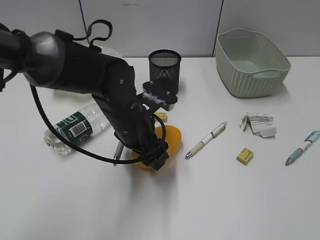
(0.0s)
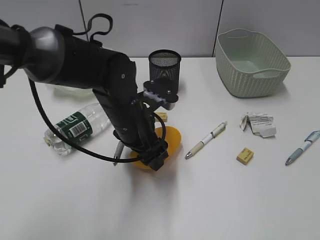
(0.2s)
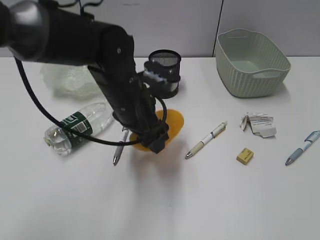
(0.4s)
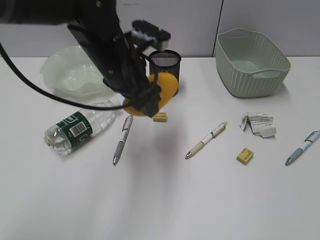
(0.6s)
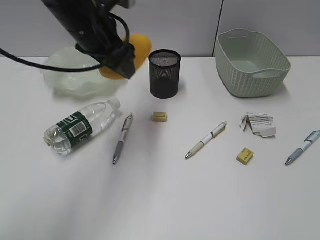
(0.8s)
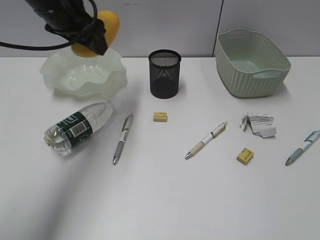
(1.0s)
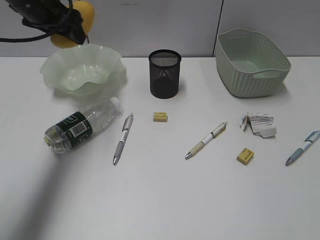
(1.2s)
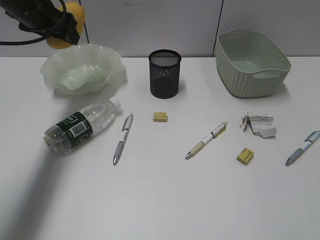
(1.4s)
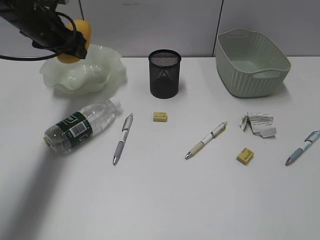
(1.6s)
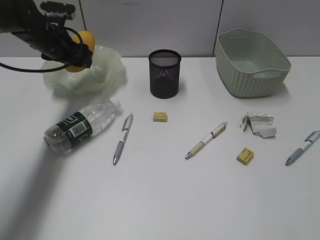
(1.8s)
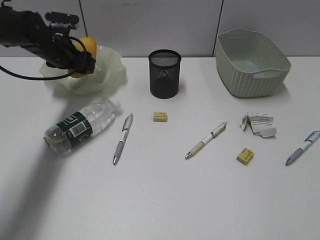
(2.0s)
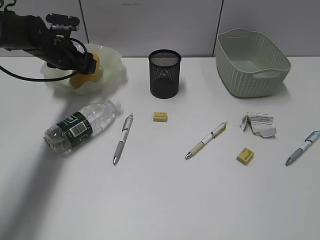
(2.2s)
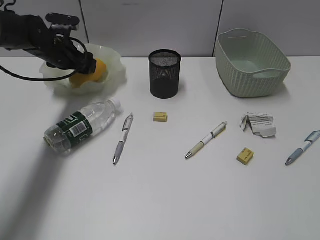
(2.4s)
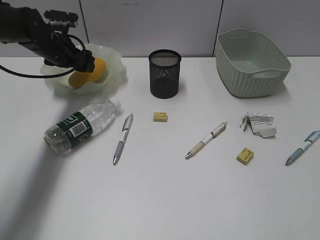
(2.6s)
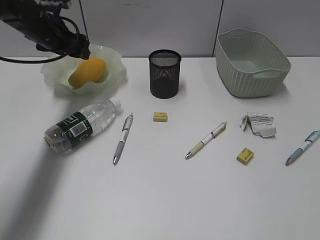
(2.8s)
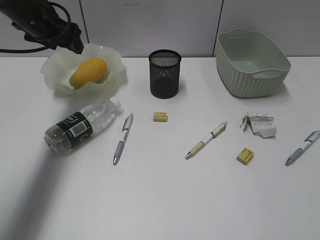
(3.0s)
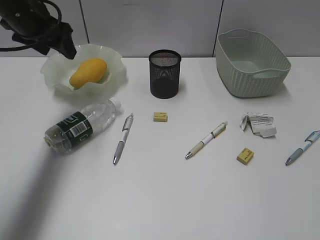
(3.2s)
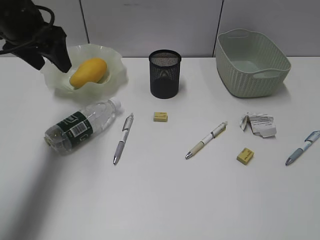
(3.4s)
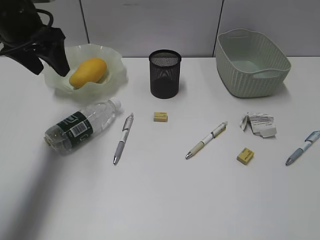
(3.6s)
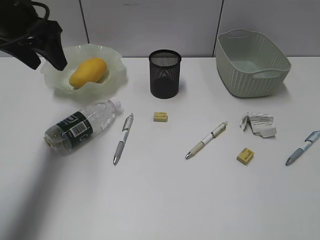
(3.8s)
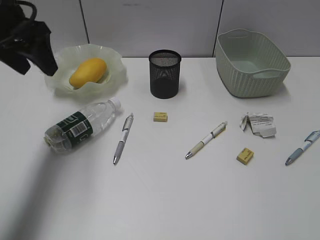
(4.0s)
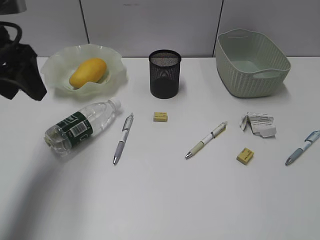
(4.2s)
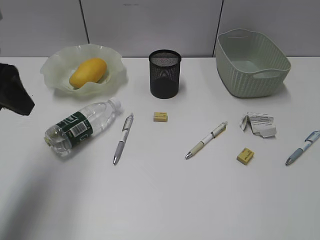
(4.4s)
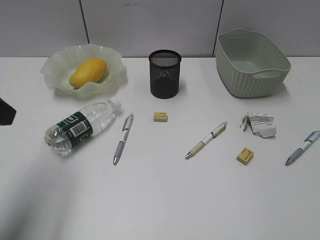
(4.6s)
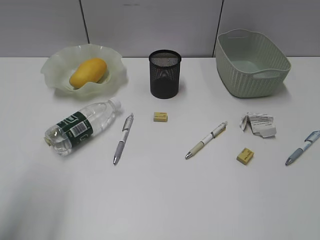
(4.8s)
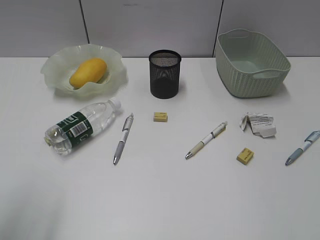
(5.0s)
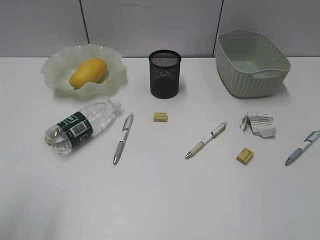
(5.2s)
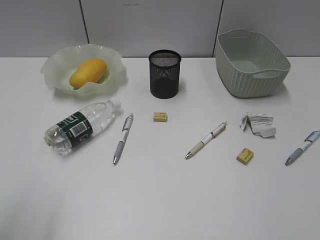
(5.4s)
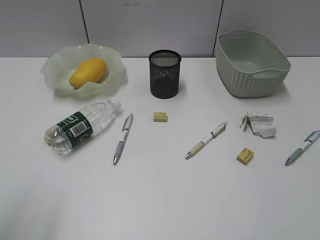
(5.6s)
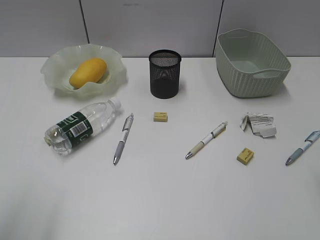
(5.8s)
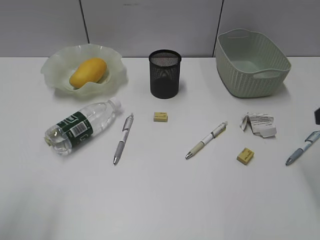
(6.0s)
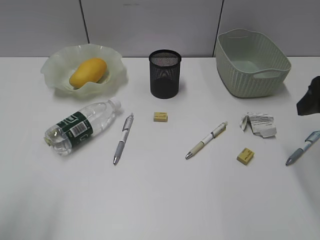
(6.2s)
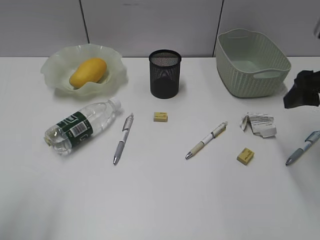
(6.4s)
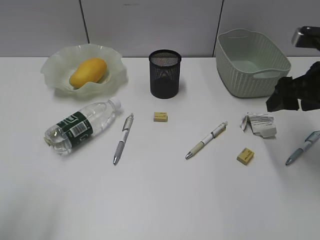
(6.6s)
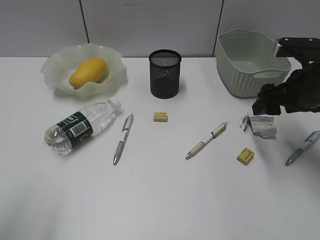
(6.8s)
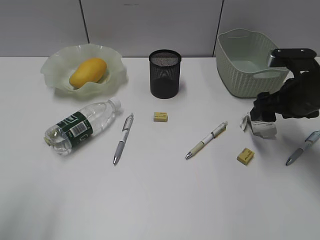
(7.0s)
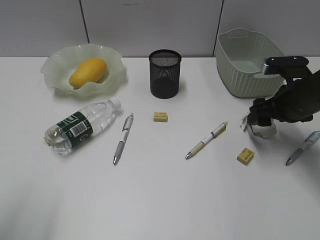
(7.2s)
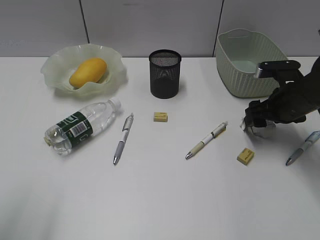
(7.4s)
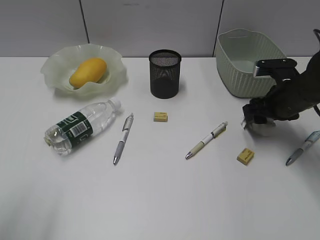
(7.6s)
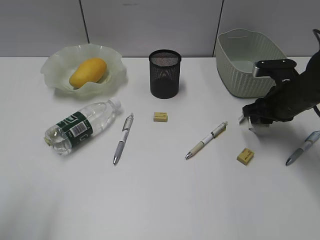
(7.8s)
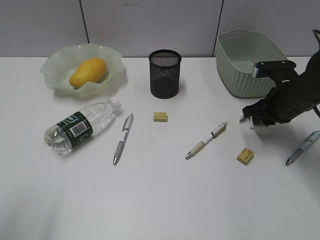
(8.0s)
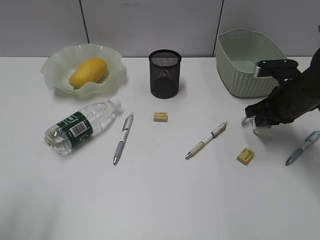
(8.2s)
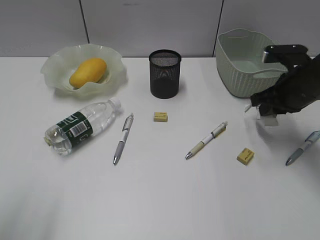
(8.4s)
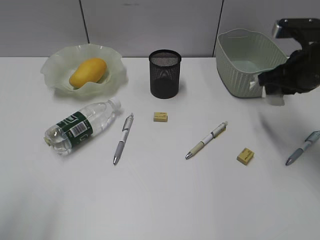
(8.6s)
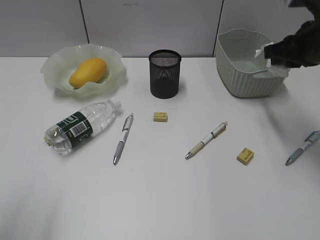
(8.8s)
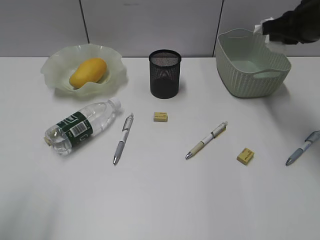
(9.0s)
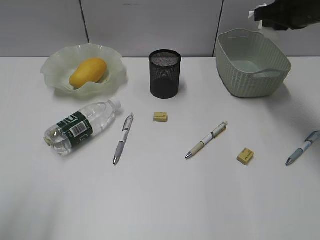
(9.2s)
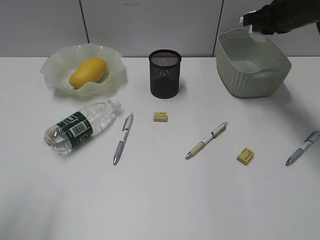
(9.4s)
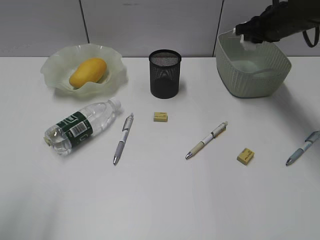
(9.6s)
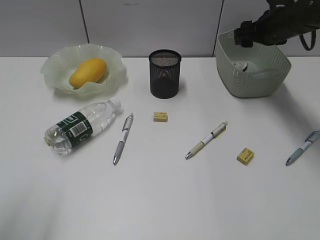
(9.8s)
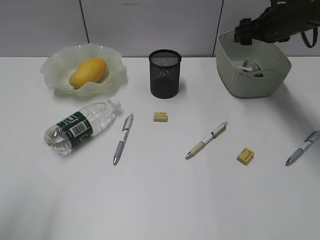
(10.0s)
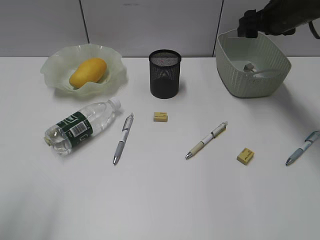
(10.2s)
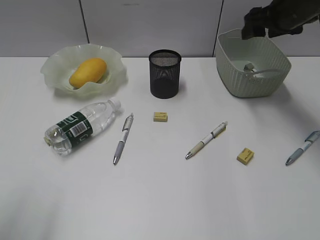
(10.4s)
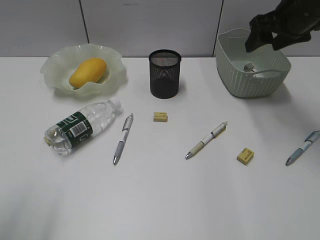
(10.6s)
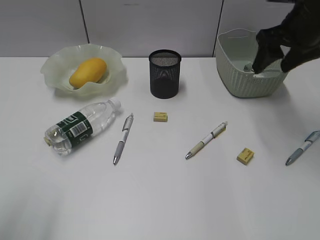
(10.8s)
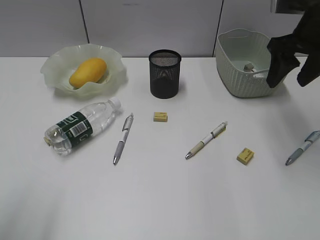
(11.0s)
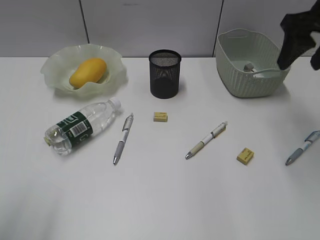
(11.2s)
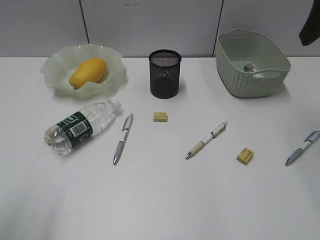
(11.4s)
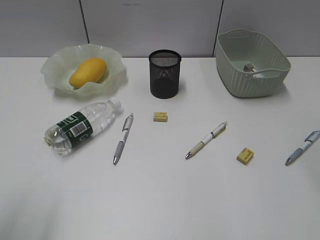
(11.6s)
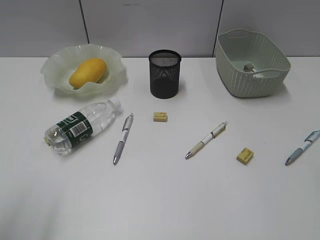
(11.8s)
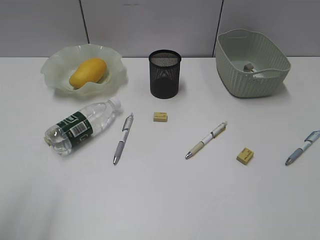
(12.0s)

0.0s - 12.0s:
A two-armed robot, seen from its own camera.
Step, 0.2s - 2.8s: Place the mango in the plate with left gripper.
Step, 3.0s - 8.0s: Grasp the waste paper with right gripper.
Step, 8.2s - 9.8s: Place the waste paper in the basket with right gripper.
0.0s - 1.6s: The left gripper goes about 25 cm to the left, forward and upward.
1.6s - 3.0s: The left gripper goes downward and returns, roughly 5 cm each way.
3.0s - 4.4s: The left gripper heads backward, covering some 20 cm.
4.4s - 6.0s: The left gripper heads backward, covering some 15 cm.
6.0s - 7.6s: The right gripper heads downward and forward, covering approximately 20 cm.
7.6s - 9.0s: The right gripper heads upward, covering roughly 15 cm, and closes.
9.0s - 10.4s: The right gripper moves forward, some 5 cm, and opens.
10.4s - 12.0s: The right gripper is displaced backward by some 35 cm.

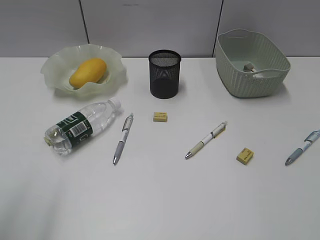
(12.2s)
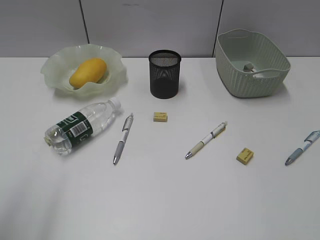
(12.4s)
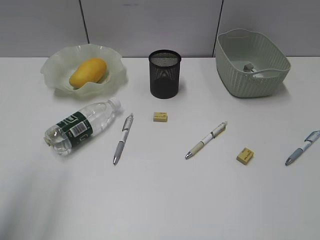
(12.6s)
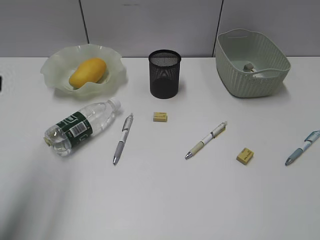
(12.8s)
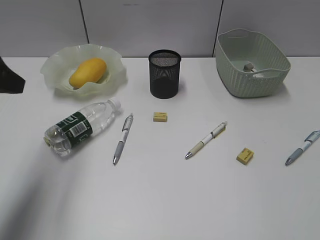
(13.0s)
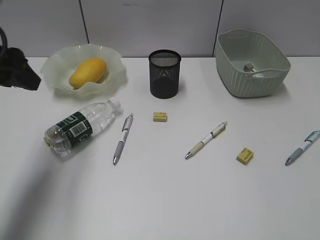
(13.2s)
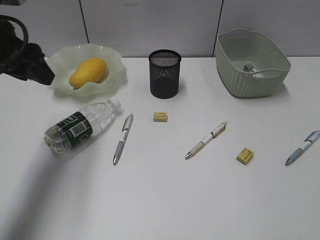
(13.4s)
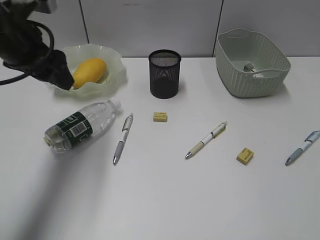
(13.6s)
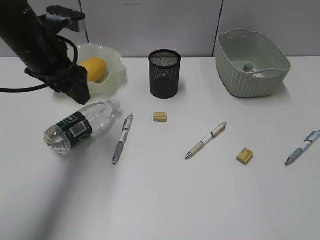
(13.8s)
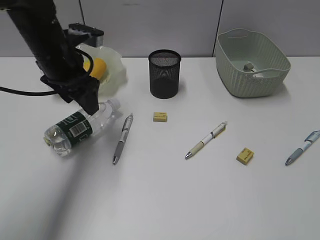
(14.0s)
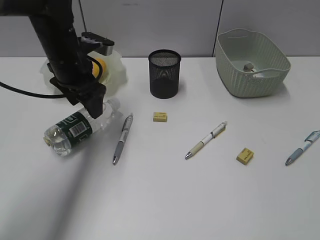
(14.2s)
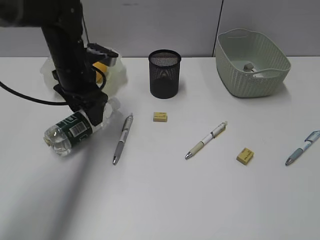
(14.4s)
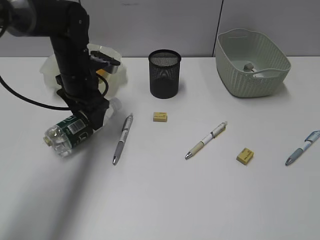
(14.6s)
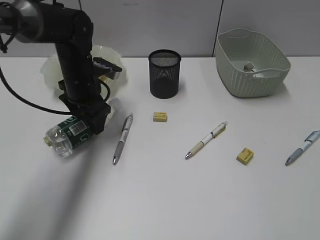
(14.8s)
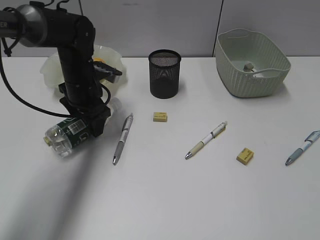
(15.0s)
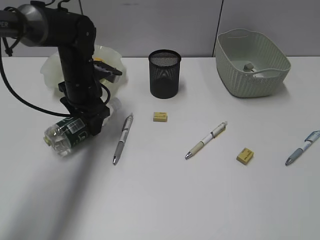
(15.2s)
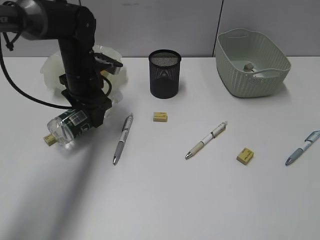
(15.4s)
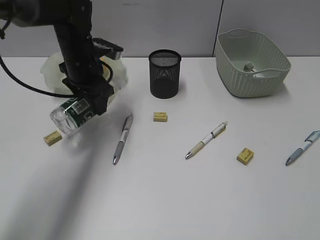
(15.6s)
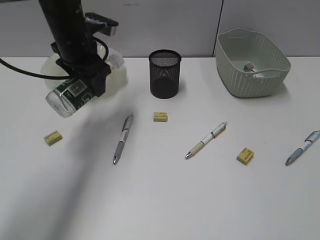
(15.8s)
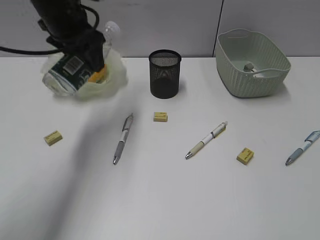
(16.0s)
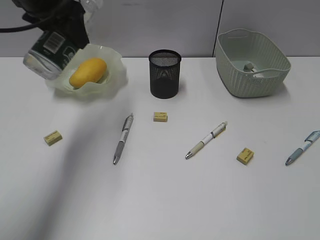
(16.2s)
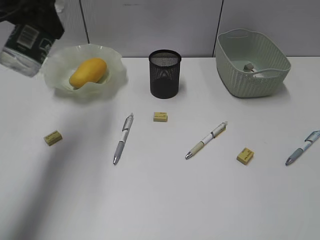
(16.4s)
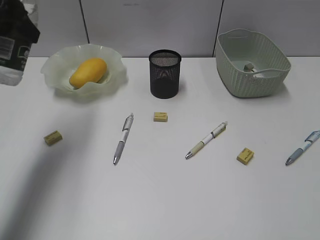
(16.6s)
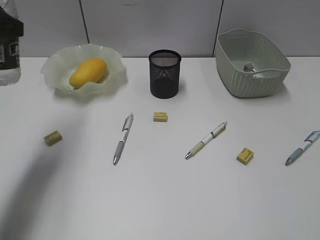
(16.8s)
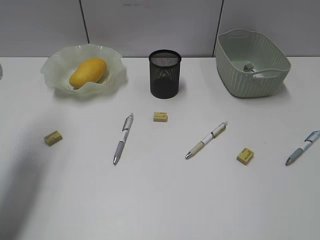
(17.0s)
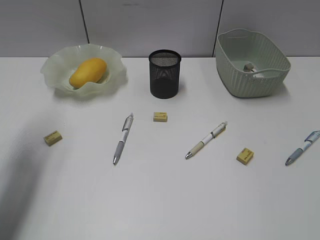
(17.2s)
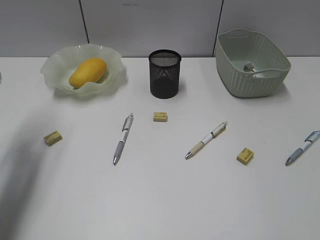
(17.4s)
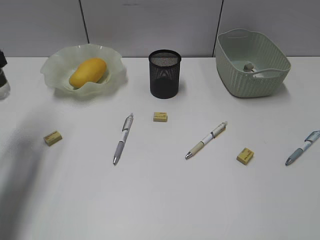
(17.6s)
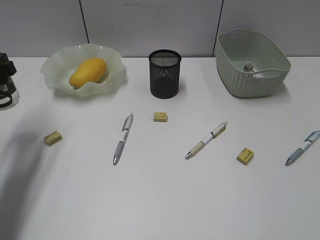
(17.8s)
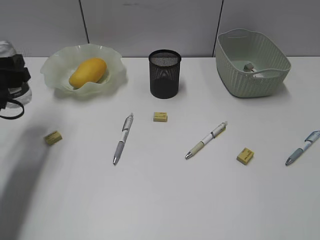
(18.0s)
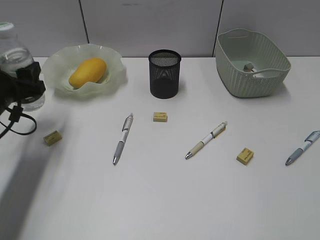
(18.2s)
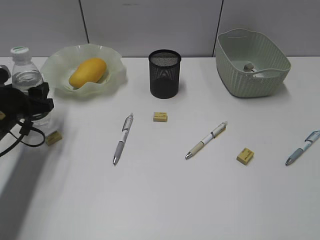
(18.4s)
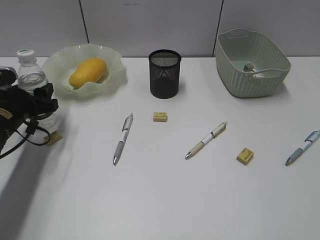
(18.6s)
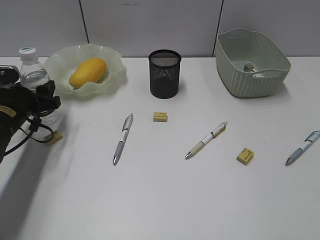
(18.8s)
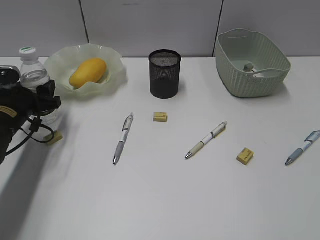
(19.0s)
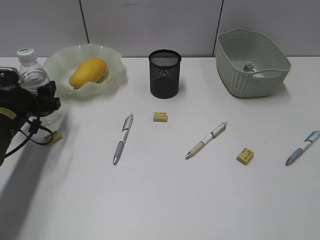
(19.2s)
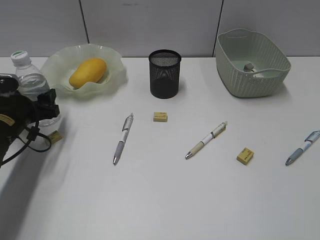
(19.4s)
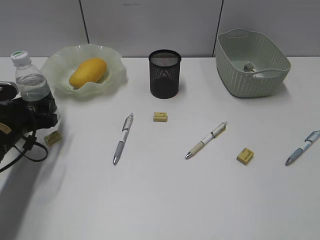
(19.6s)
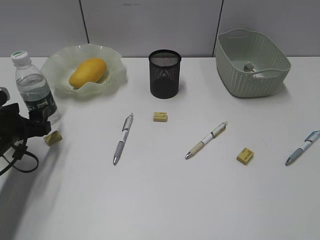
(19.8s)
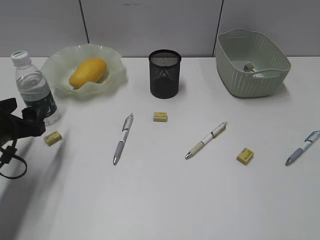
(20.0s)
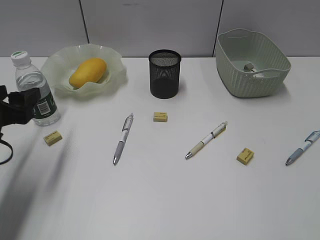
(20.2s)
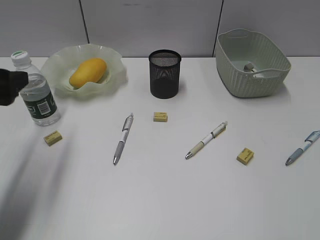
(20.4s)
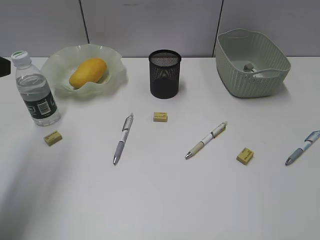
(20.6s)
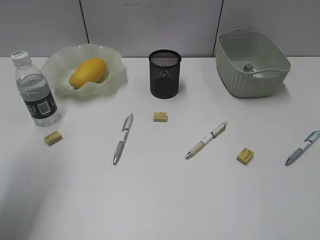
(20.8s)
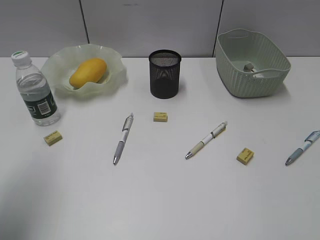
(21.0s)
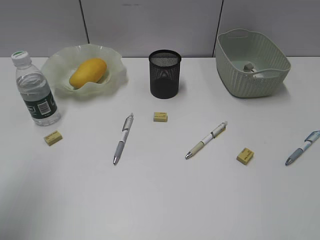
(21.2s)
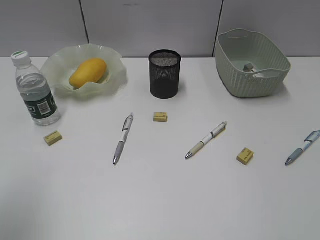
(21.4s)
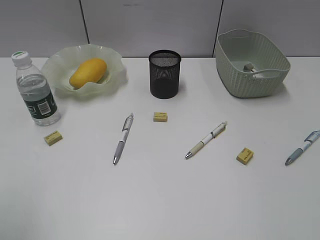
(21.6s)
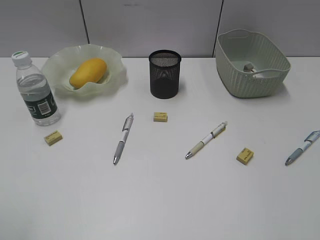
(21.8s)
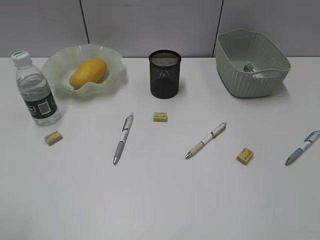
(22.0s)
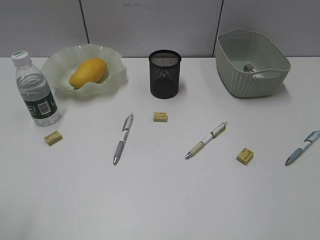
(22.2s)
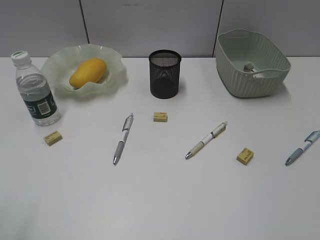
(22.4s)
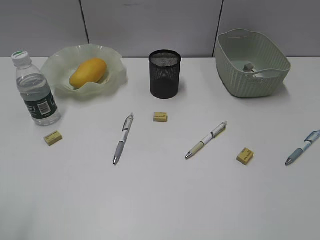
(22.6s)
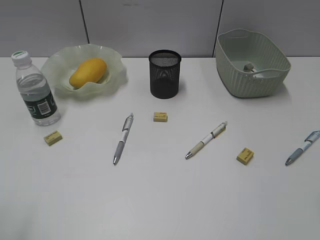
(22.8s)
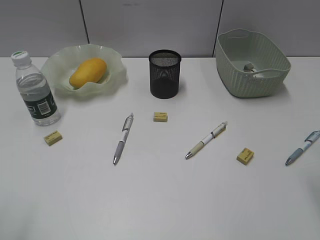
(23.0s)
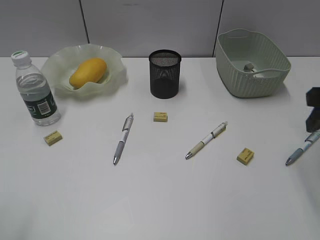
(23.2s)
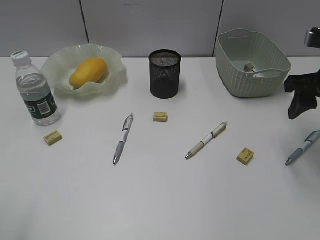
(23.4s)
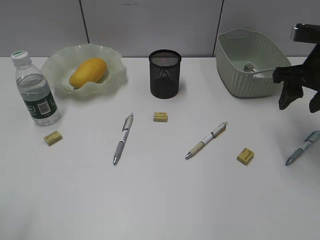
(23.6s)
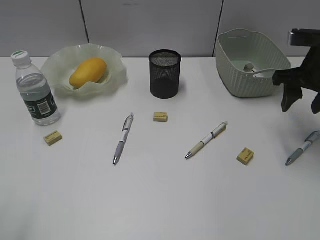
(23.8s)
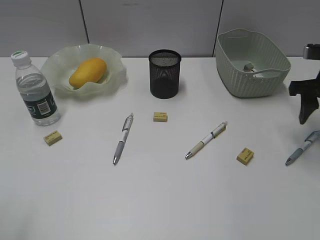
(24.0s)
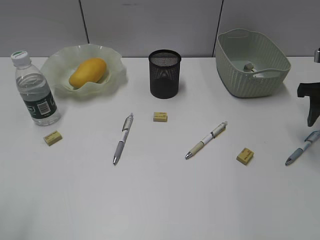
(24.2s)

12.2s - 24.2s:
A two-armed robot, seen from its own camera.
Step, 12.2s - 15.0s: Grasp the bottle with left gripper.
Step, 15.2s - 19.6s: Stand the bottle with left gripper.
12.2s - 13.8s: The right gripper shifts by about 5 cm. Meanwhile the left gripper goes some 30 cm forward and to the right.
13.8s - 15.2s: The left gripper shifts roughly 15 cm downward and forward.
15.2s - 16.6s: The left gripper goes roughly 25 cm upward, to the left and backward.
16.6s - 18.2s: The left gripper moves downward, some 20 cm.
18.2s - 19.8s: The left gripper moves downward, approximately 5 cm.
19.8s - 21.2s: The left gripper moves upward and backward, roughly 25 cm, and closes.
21.2s - 22.6s: The left gripper shifts some 10 cm backward.
22.6s - 24.2s: The right gripper travels forward by roughly 30 cm.
